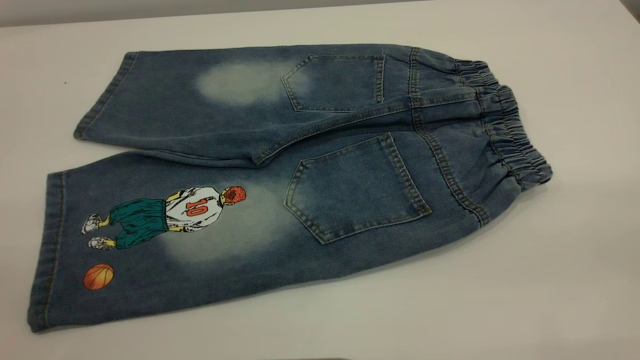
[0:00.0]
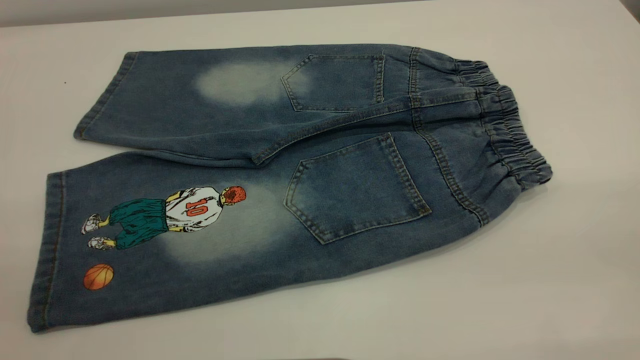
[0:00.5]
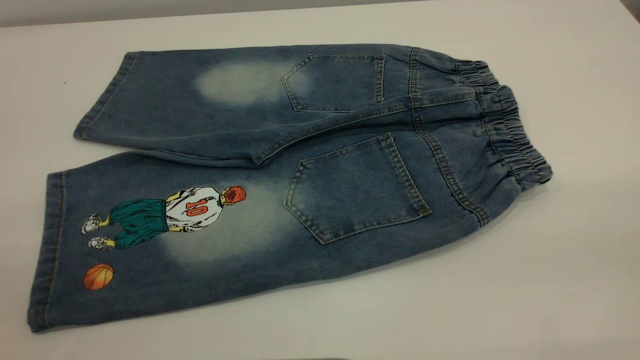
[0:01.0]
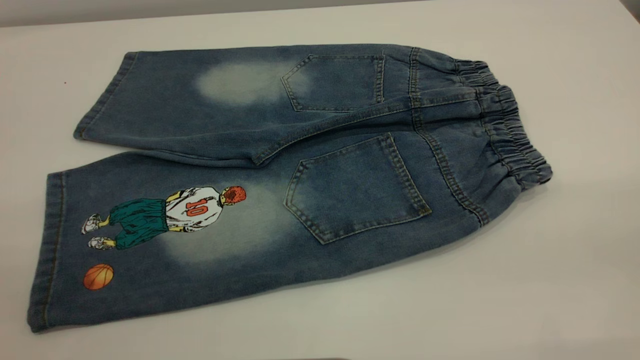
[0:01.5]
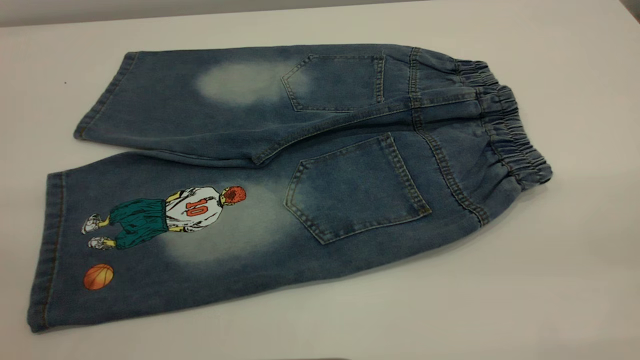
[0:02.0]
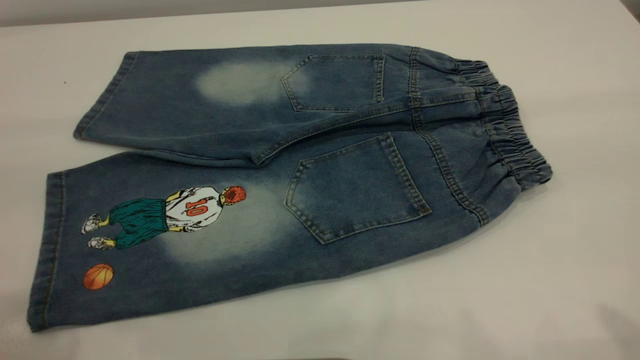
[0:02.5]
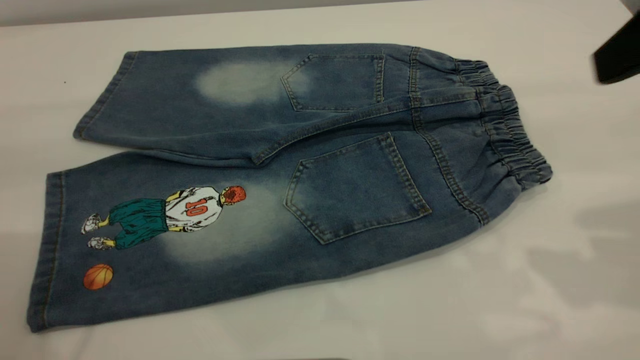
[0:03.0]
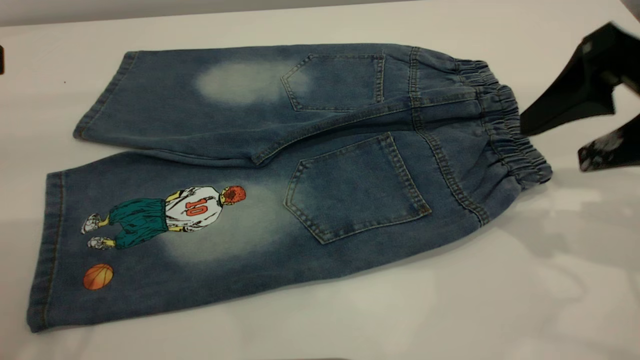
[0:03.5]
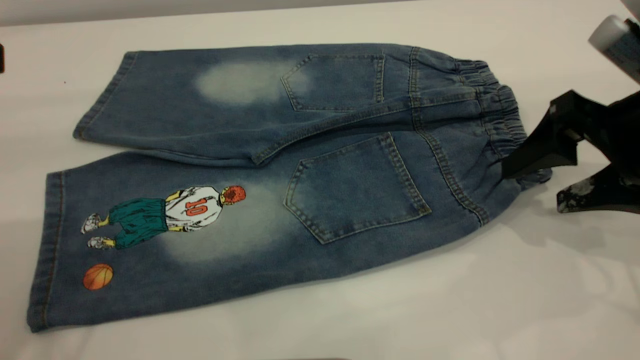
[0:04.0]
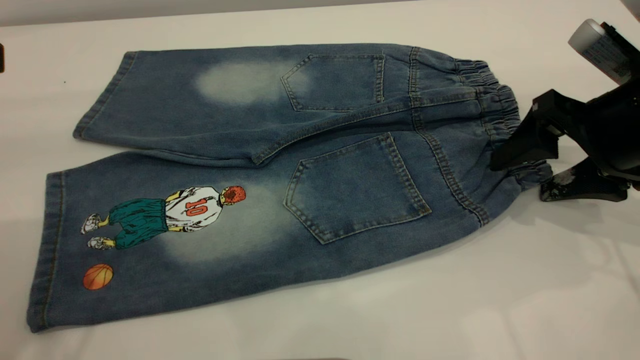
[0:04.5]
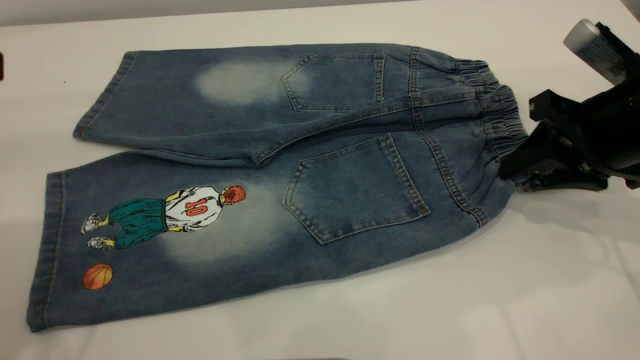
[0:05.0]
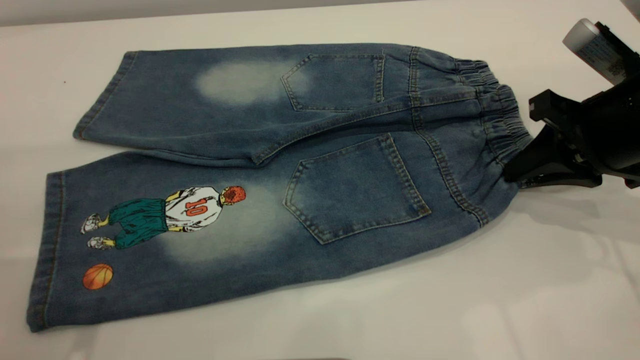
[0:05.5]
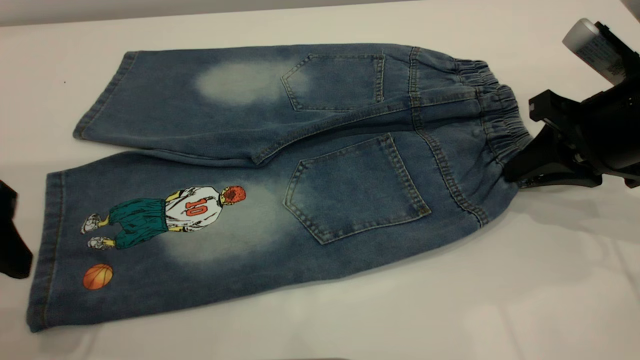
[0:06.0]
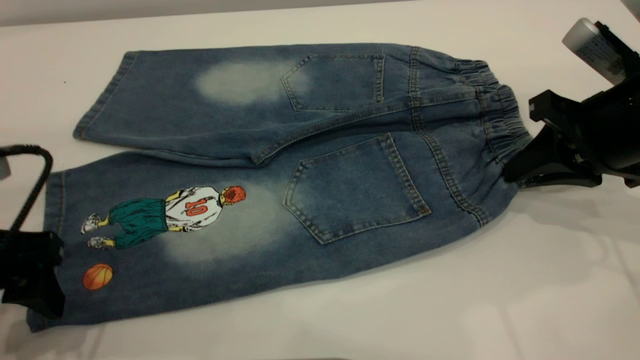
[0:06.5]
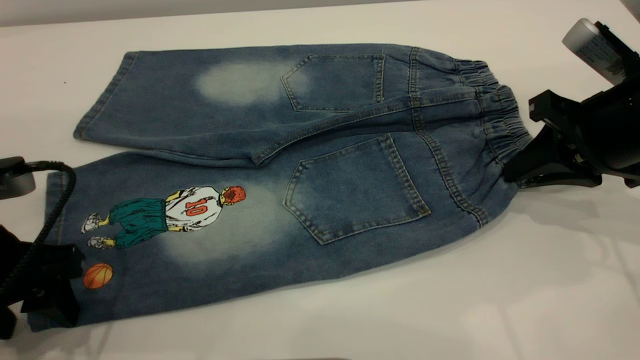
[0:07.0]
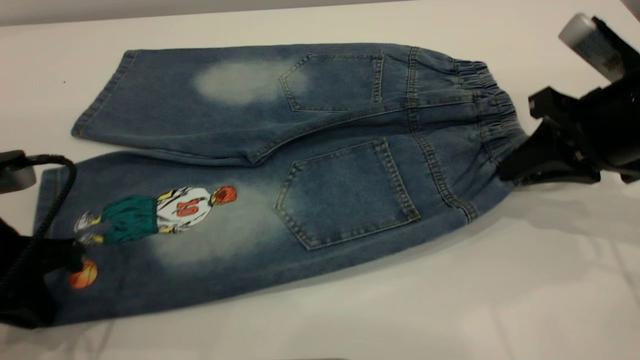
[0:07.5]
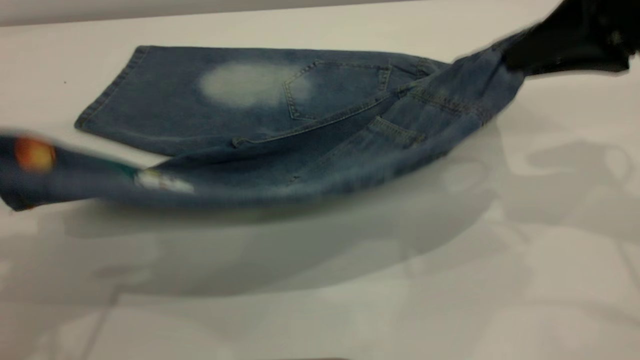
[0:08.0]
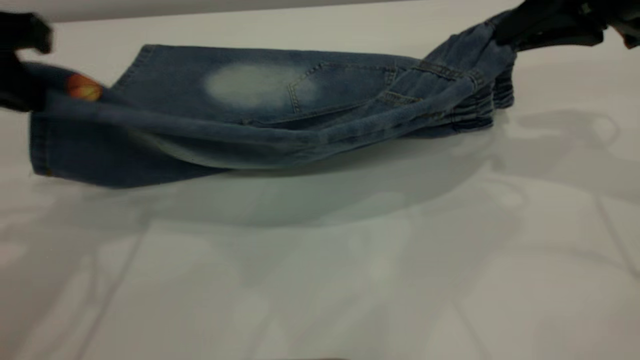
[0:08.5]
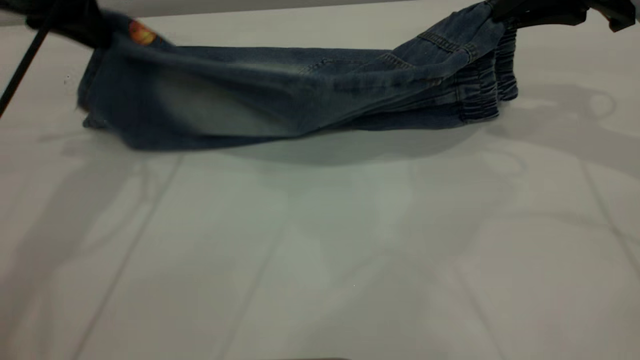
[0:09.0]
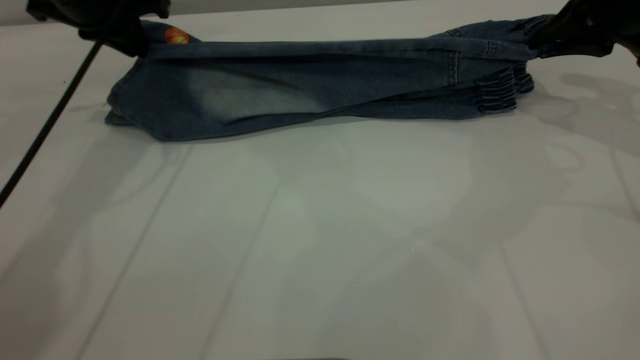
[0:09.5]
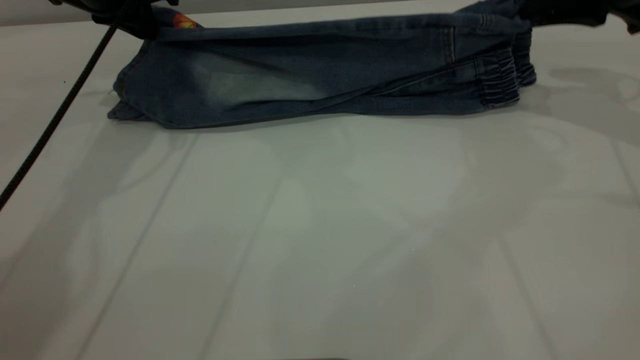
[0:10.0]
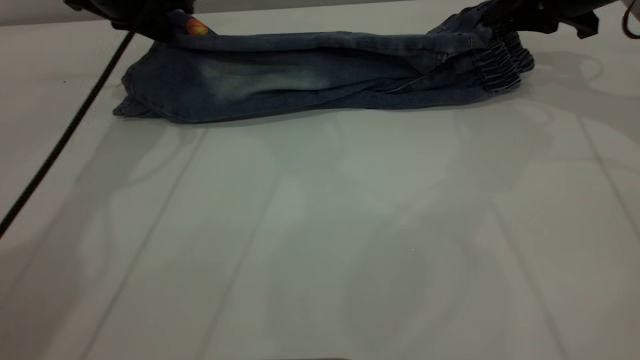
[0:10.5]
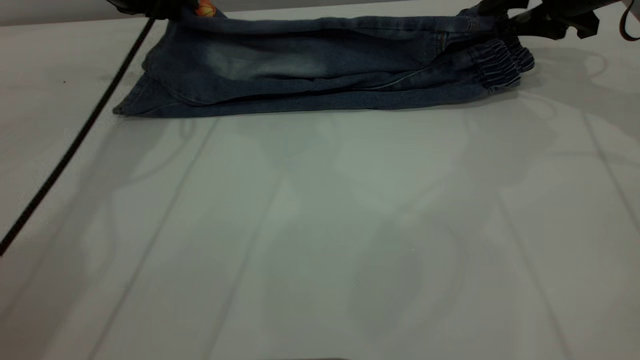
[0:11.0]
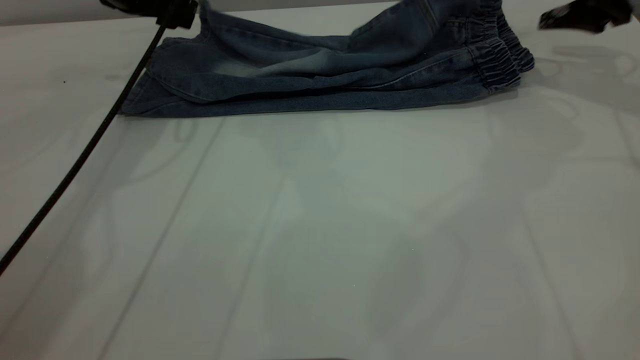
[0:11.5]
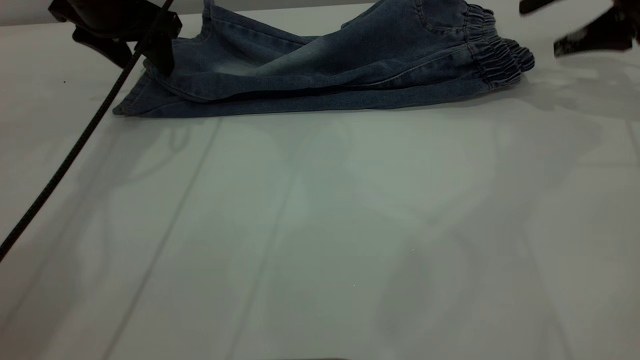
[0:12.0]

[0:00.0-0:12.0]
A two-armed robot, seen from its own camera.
Step, 0:00.0 to 0:11.5: Fold the bottom of the pants upward.
0:02.0 to 0:04.0: The right gripper heads forward and downward, covering approximately 35 cm.
0:04.0 to 0:06.0: The left gripper goes some 10 cm downward. The right gripper closes.
0:06.0 to 0:08.0: The grippers both shift upward by some 10 cm. The left gripper closes its fingers.
0:08.0 to 0:10.0: The left gripper moves forward, some 25 cm. The right gripper goes some 15 cm forward and to the right.
0:10.0 to 0:12.0: The right gripper opens. Meanwhile the left gripper opens its fingers.

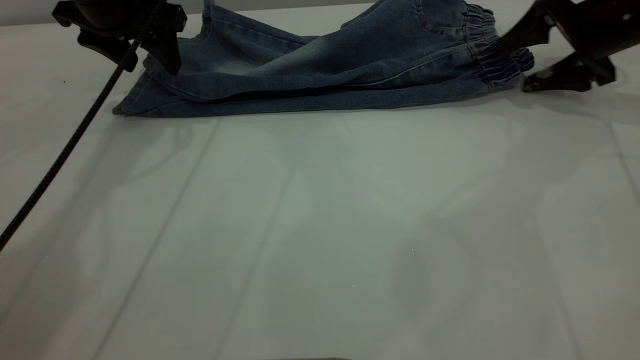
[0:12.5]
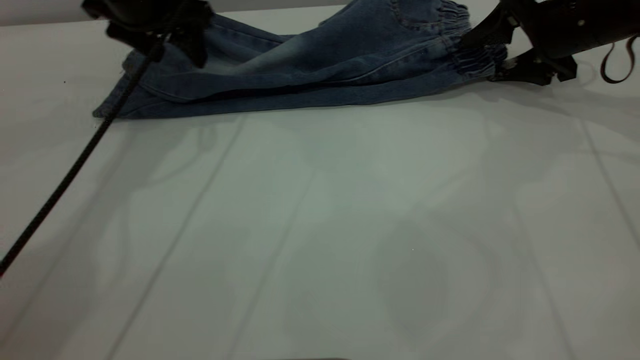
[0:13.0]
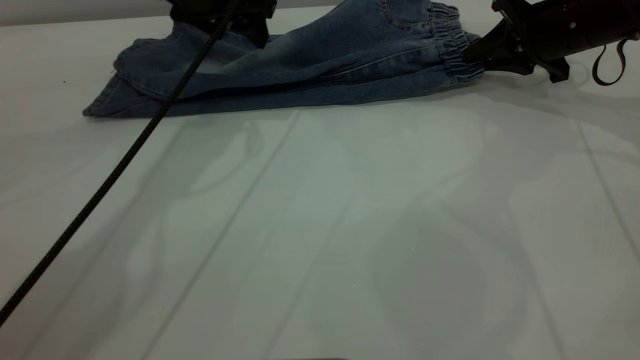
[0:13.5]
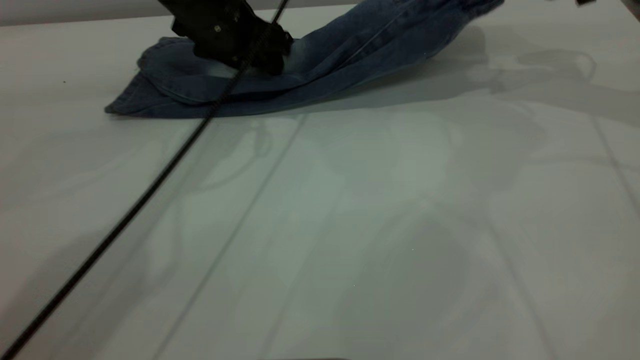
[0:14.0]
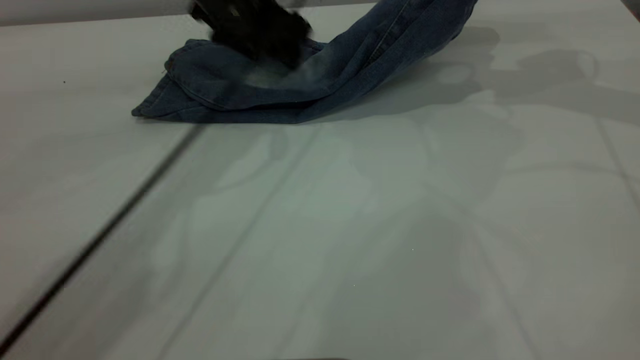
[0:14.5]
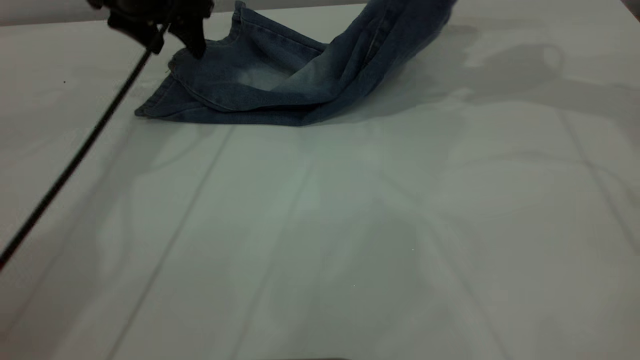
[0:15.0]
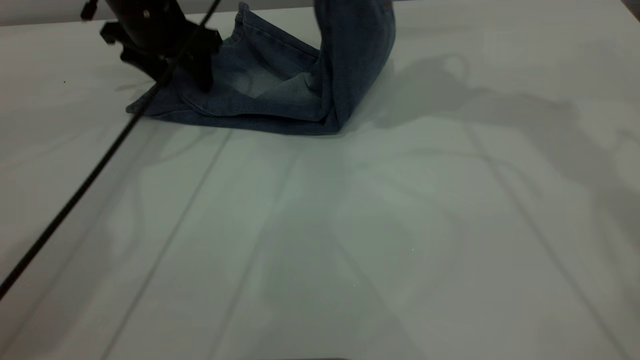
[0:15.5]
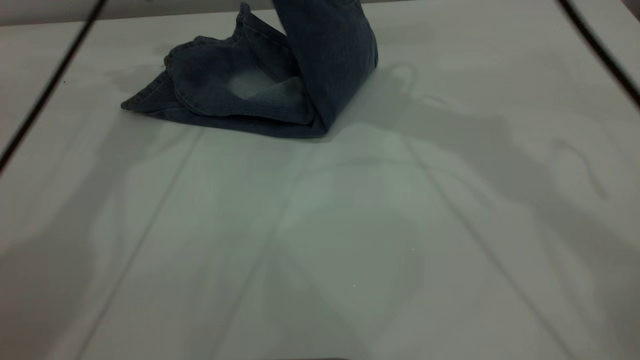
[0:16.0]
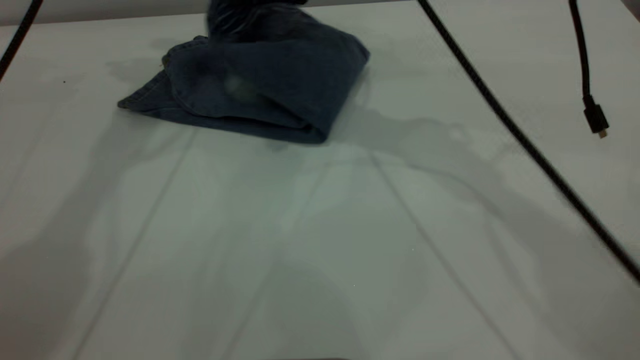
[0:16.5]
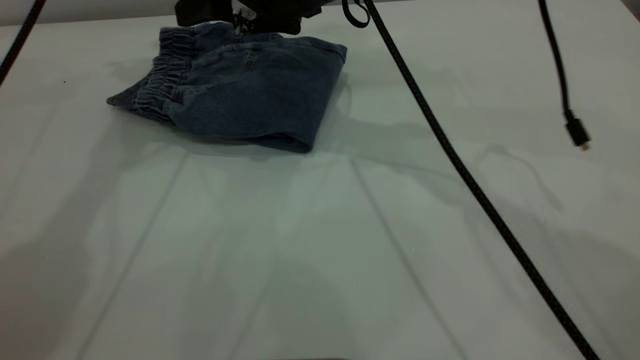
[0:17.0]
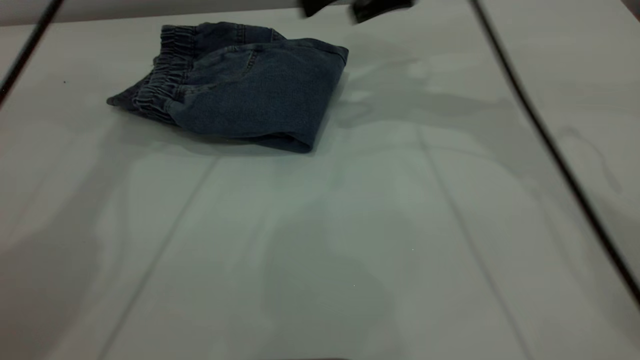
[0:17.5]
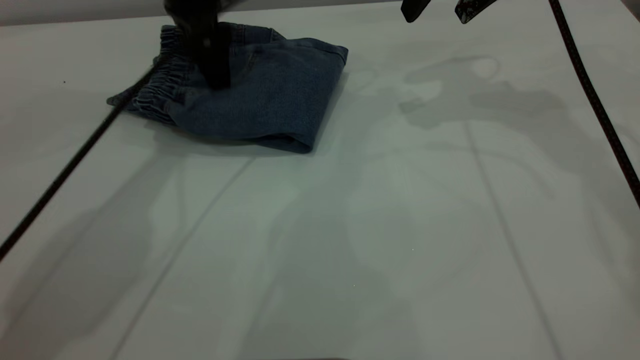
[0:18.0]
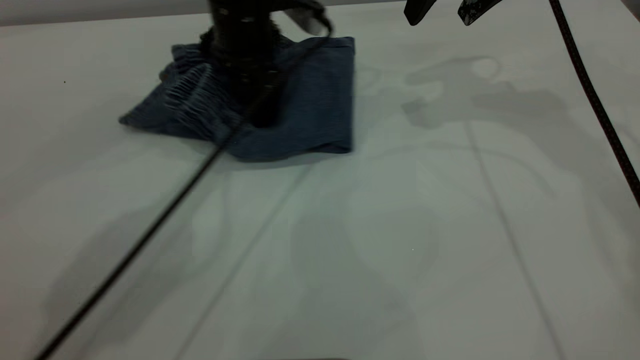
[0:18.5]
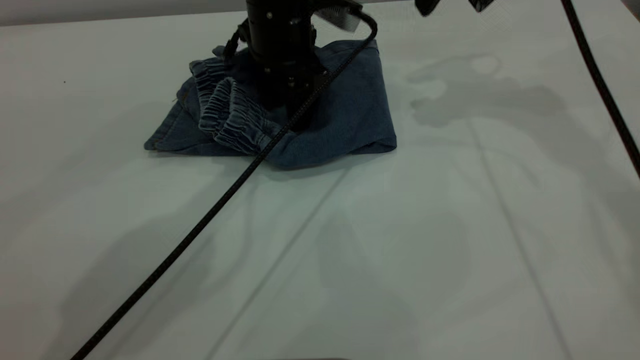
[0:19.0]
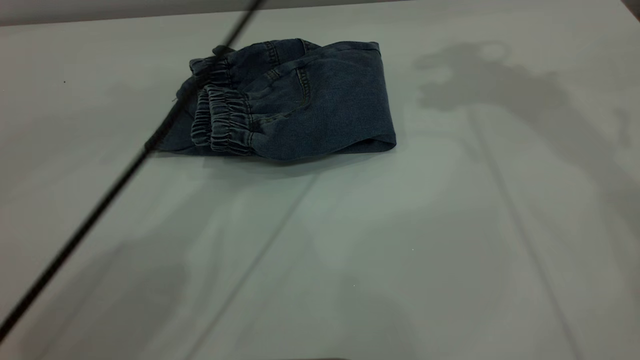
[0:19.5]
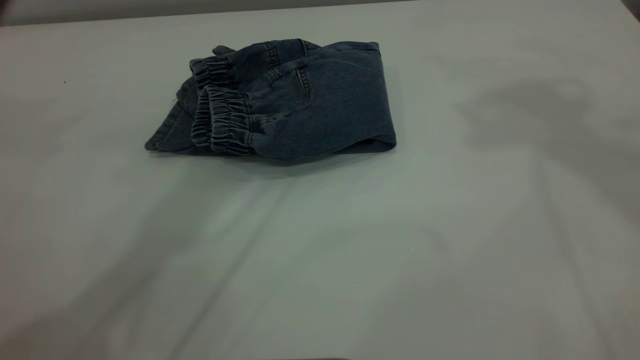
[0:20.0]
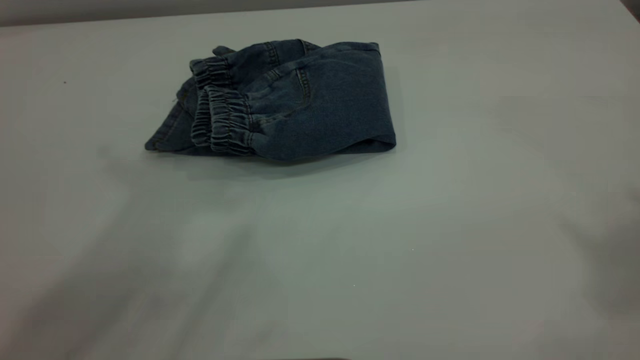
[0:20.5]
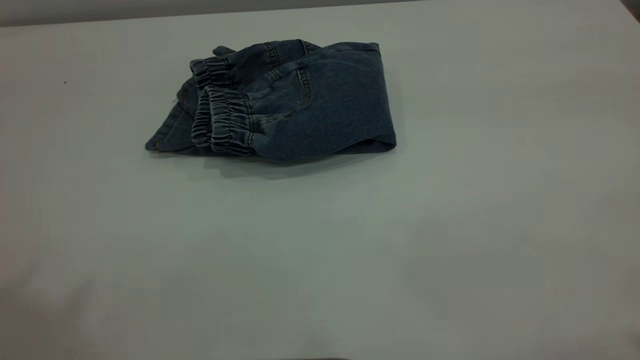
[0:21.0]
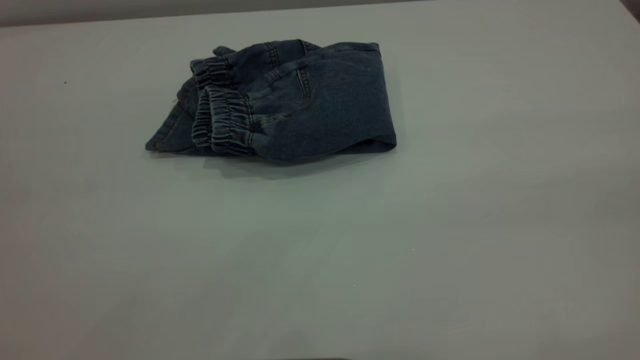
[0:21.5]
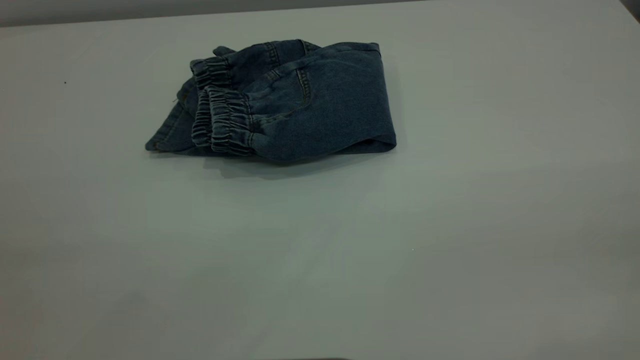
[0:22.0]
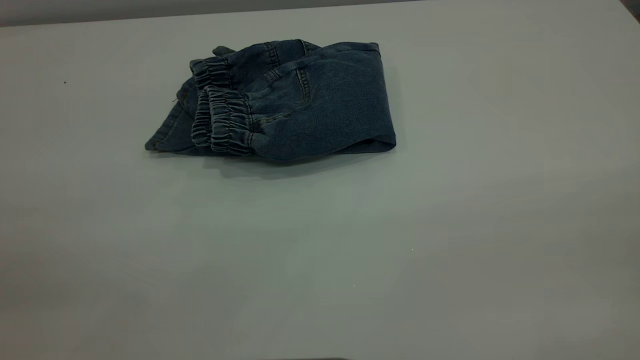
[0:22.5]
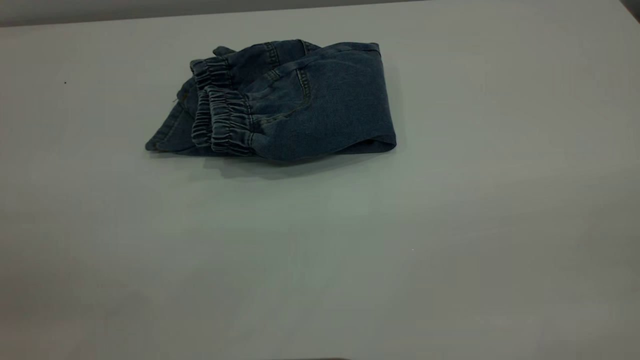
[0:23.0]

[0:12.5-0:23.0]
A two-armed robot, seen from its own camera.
Step, 0:12.5 to 0:17.5: Fold your pants from right to left.
0:12.5 to 0:14.5: The left gripper shifts about 10 cm to the right; the right gripper travels upward by approximately 15 cm, and closes.
0:14.5 to 0:16.5: The right gripper travels to the left by approximately 25 cm; the left gripper moves upward and to the left, roughly 20 cm.
0:16.5 to 0:19.0: The left gripper shifts roughly 25 cm downward and to the right. Meanwhile the right gripper goes roughly 15 cm to the right, and opens.
0:19.0 to 0:21.0: The left gripper travels upward, backward and to the left by approximately 60 cm. The right gripper shifts about 40 cm backward and upward.
